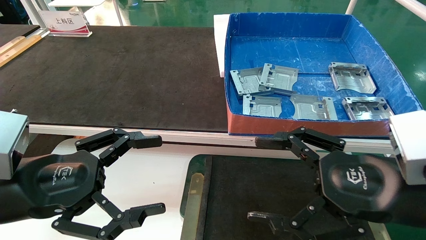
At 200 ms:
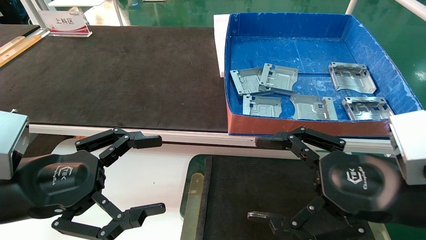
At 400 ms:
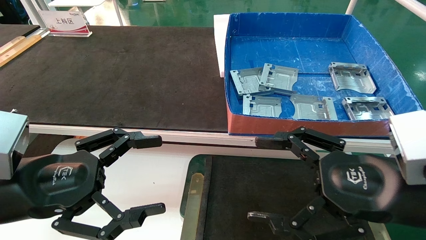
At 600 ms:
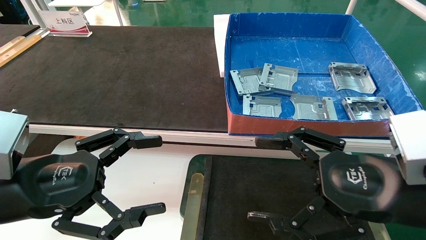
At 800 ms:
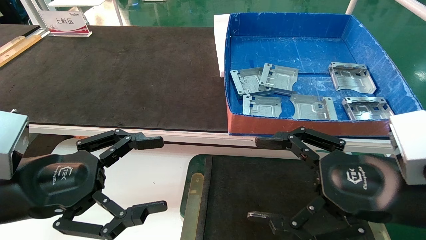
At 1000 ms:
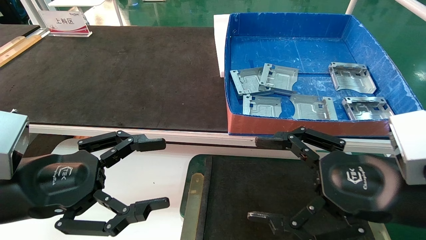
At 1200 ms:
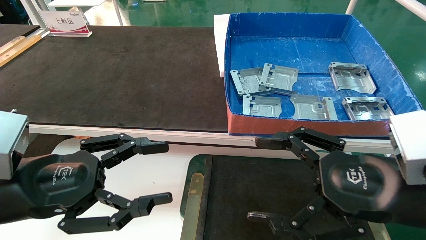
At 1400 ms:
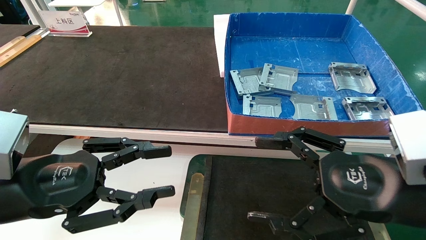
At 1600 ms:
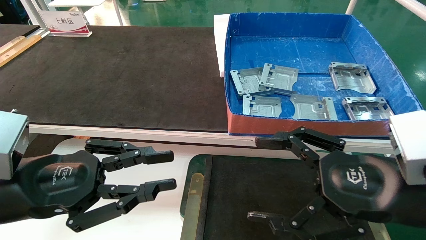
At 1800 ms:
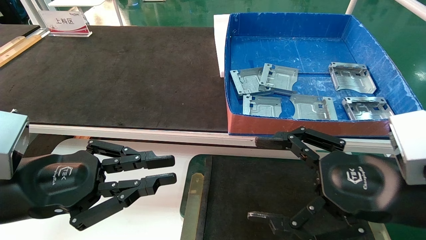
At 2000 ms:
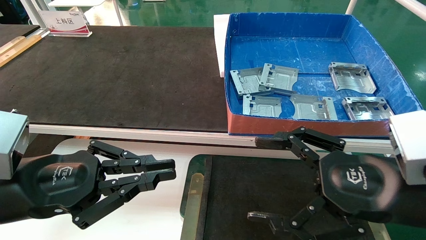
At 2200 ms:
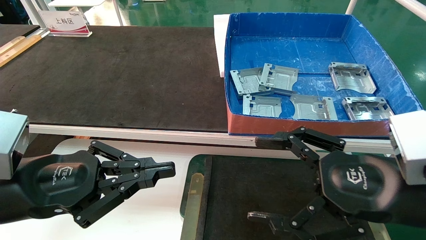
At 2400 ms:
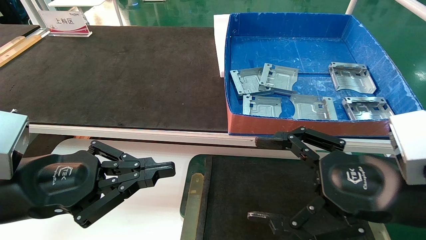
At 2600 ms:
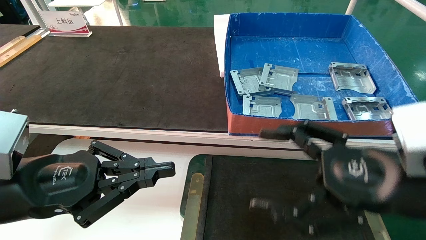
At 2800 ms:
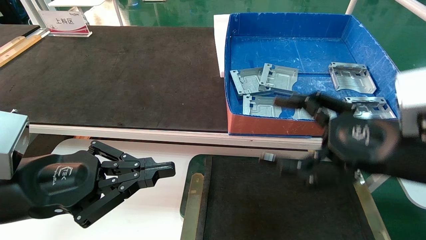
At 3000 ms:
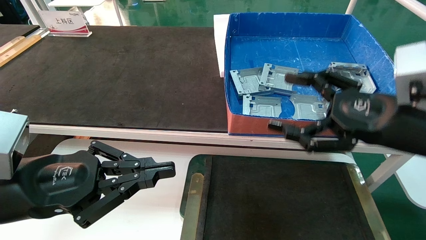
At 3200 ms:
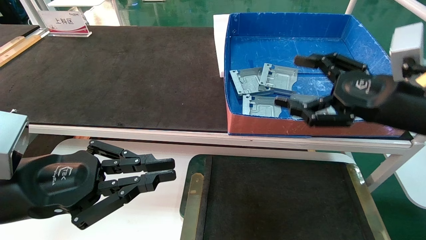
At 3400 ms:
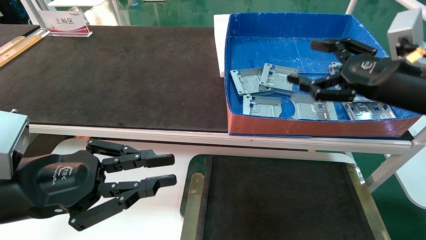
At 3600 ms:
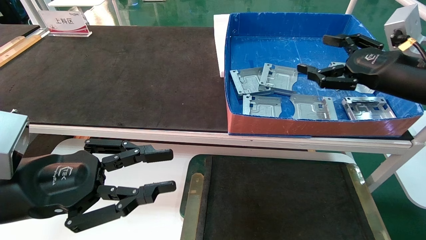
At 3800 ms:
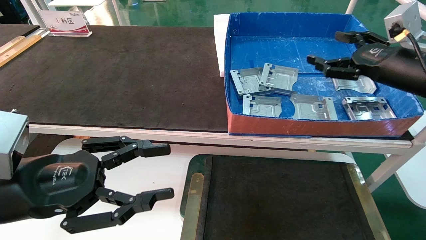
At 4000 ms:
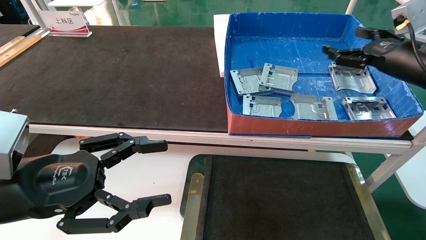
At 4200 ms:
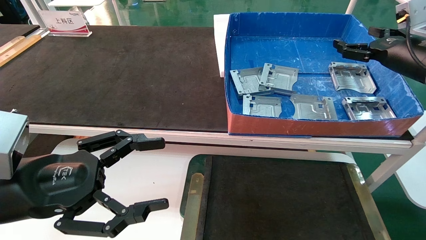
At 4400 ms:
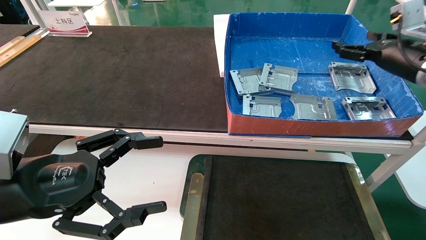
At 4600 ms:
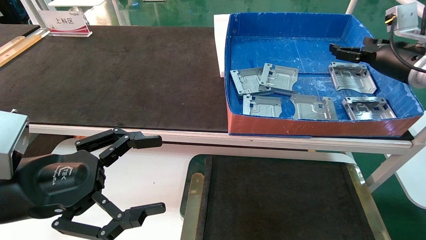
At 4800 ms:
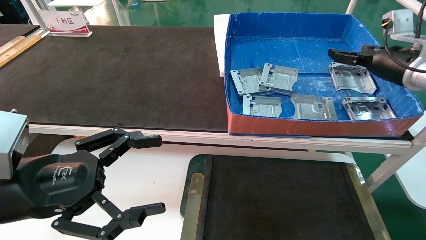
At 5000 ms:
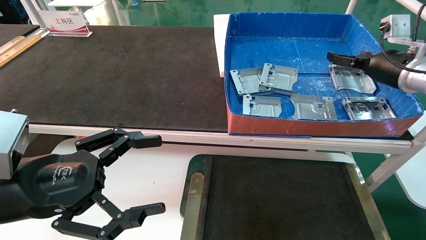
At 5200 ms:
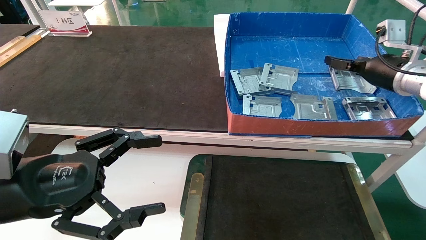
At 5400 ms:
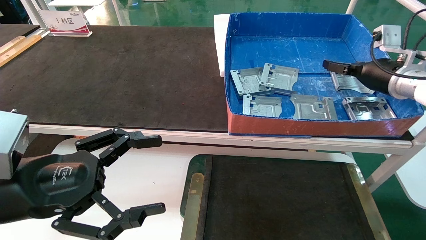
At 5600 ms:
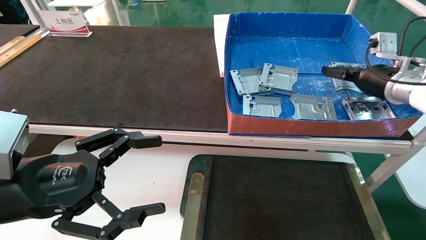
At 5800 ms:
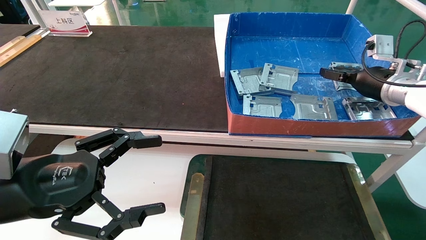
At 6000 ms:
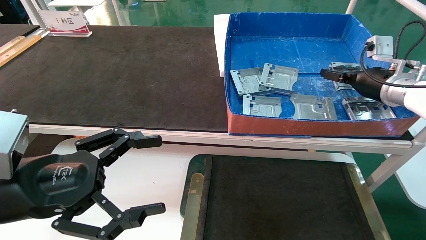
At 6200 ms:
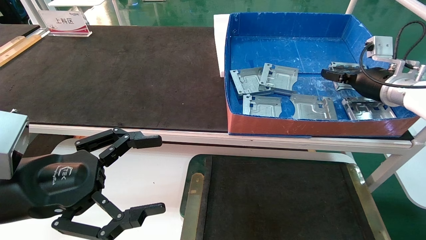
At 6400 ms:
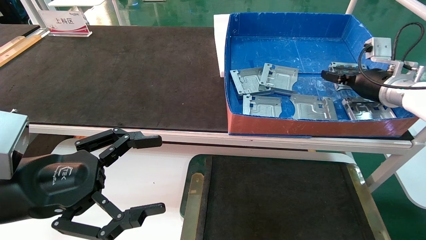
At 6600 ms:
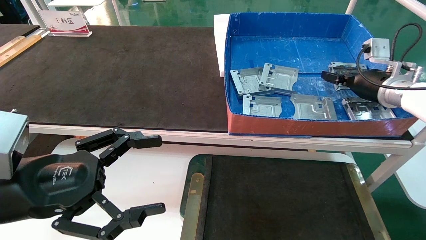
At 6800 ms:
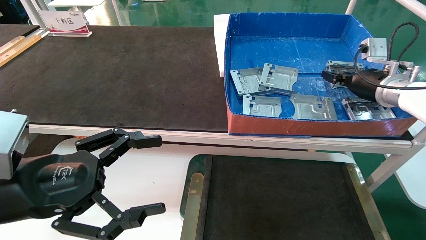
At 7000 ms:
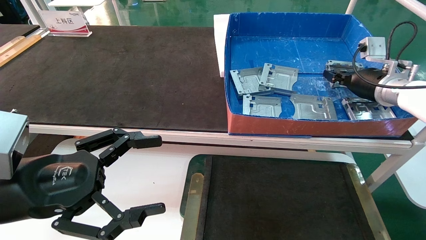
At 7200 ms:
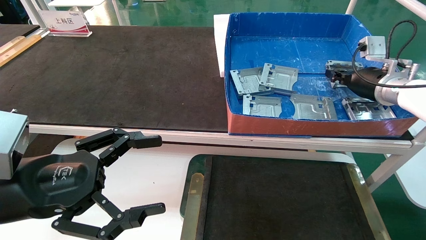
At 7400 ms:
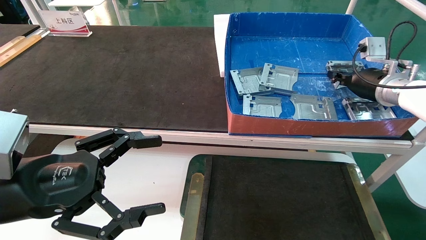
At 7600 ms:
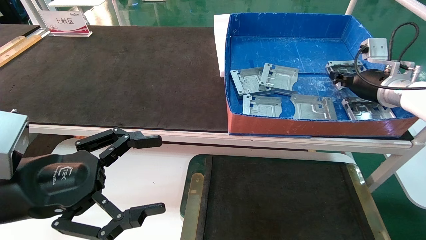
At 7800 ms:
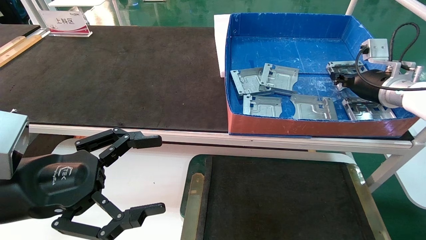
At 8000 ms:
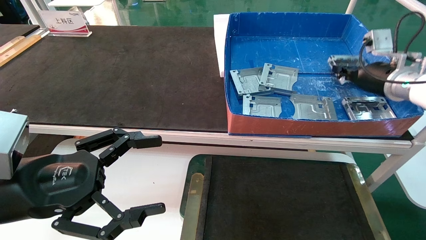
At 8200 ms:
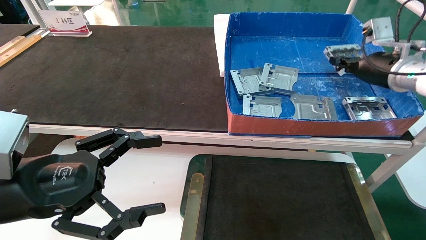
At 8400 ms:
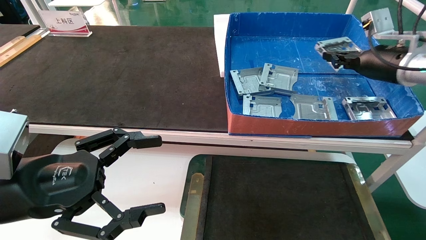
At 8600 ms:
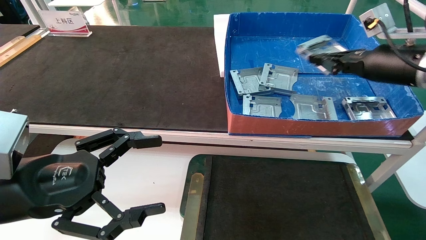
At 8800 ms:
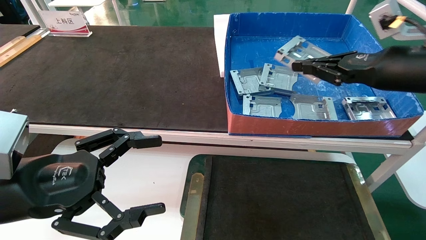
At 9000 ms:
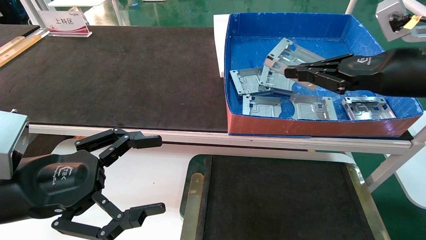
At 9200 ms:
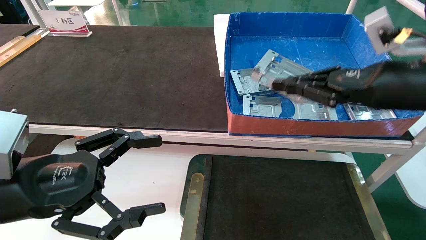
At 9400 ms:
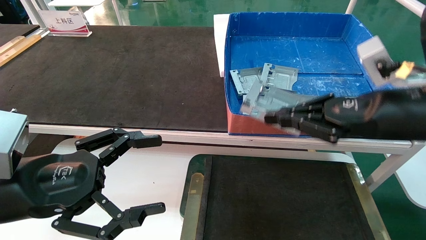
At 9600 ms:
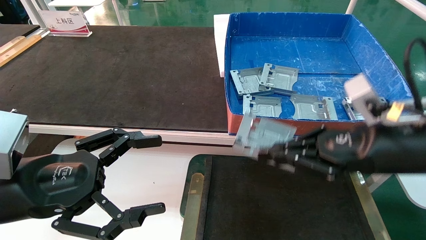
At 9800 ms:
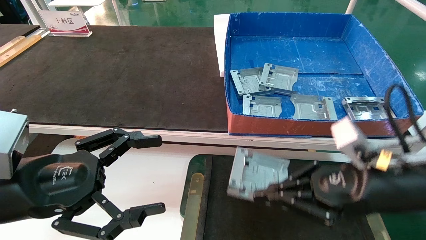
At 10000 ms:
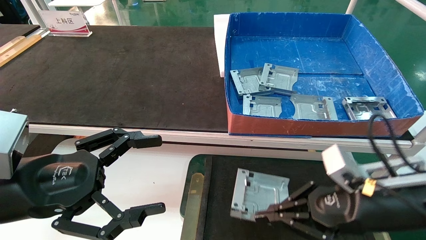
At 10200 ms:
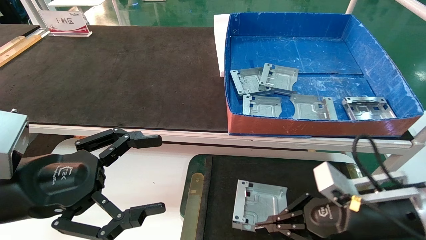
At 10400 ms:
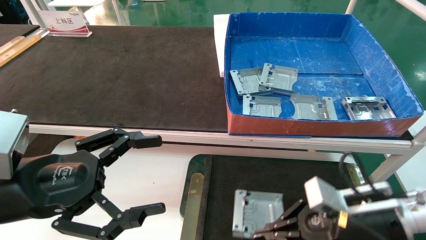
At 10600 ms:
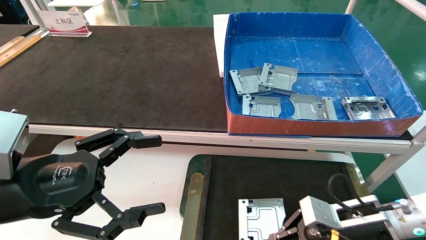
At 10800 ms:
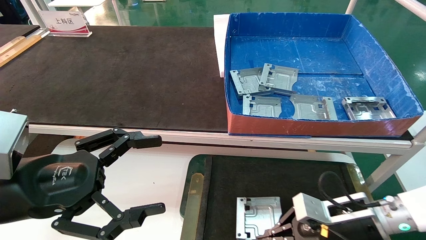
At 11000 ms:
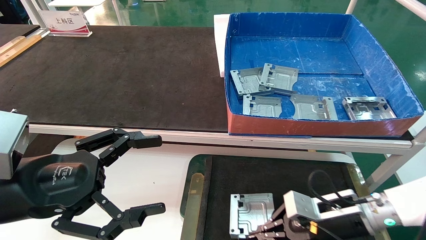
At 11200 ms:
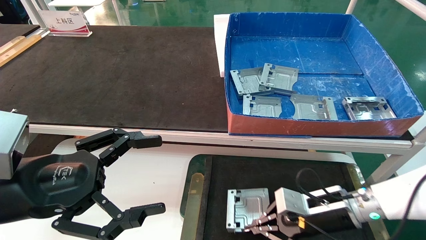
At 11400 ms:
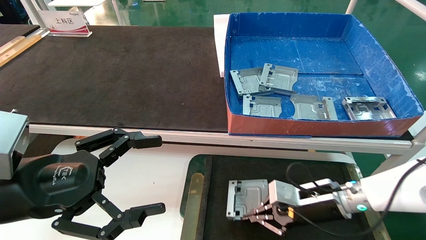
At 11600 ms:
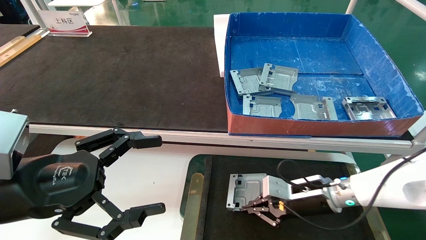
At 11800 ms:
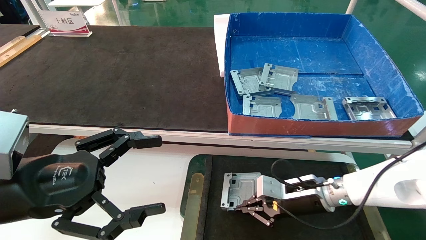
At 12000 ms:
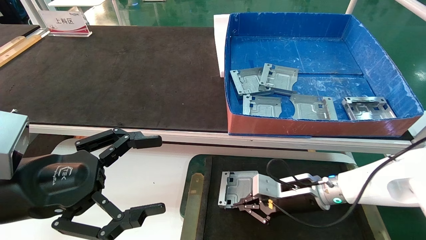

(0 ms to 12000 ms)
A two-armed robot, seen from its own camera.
Task of the whole recording: pick up parts and place them into a black container.
Step, 3000 ms - 7400 ms: Pick up the hard drive bracket from the feeding area.
0 ms - 1600 ms: The left gripper closes up.
1600 ms - 3000 ms: The left gripper closes. Meanwhile the right gripper is displaced forward by approximately 5 cm.
3000 ms - 4400 ms: The left gripper opens, while the right gripper is displaced forward and to the right by approximately 20 cm.
4400 ms - 6000 ms: The right gripper changes place by approximately 5 cm.
6000 ms - 7600 ms: The right gripper closes its fingers.
7600 ms - 9000 ms: The right gripper moves backward, some 15 cm.
9000 ms - 10400 ms: The right gripper is displaced downward by some 20 cm.
10400 ms - 12000 ms: The right gripper goes about 15 cm forward and to the left.

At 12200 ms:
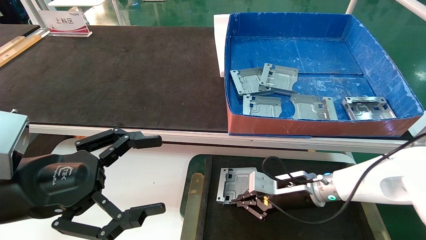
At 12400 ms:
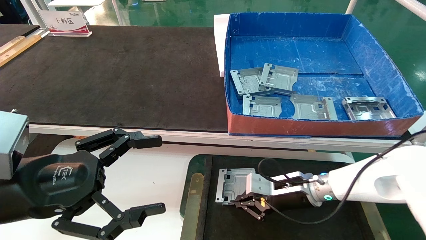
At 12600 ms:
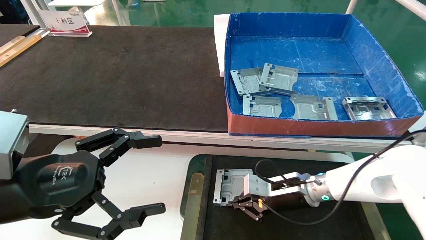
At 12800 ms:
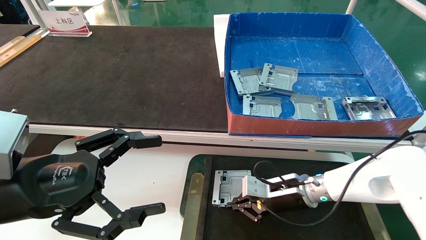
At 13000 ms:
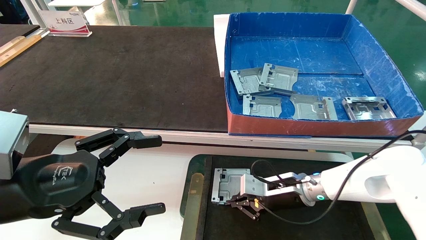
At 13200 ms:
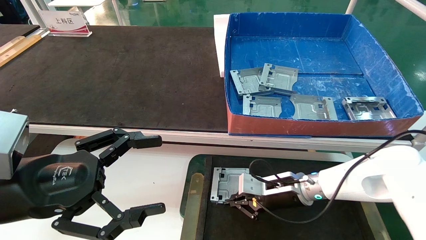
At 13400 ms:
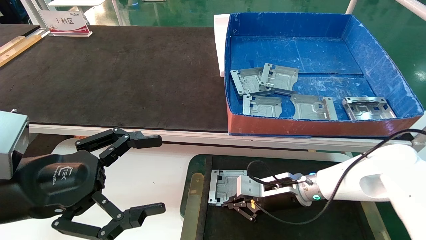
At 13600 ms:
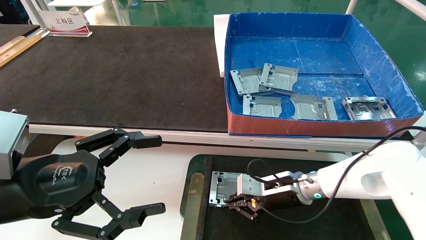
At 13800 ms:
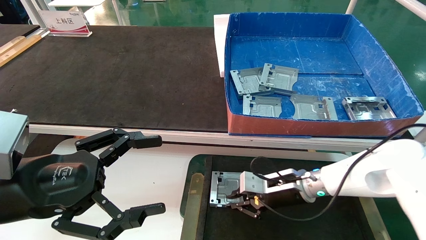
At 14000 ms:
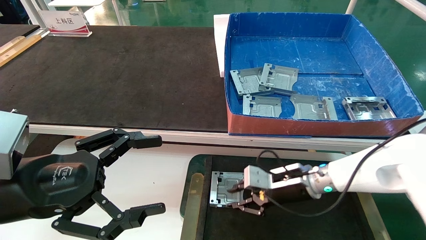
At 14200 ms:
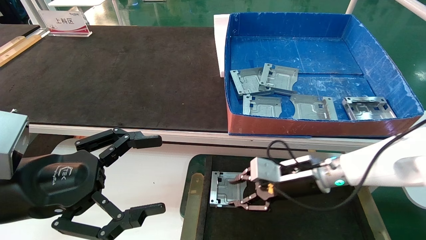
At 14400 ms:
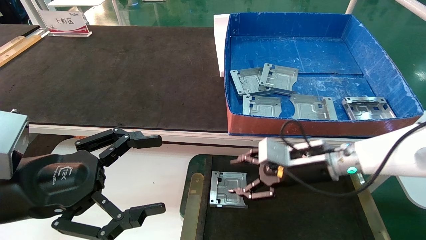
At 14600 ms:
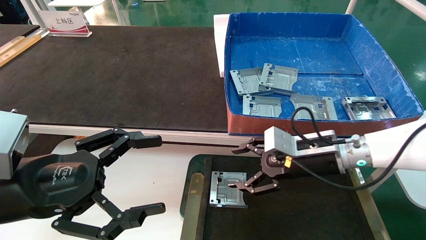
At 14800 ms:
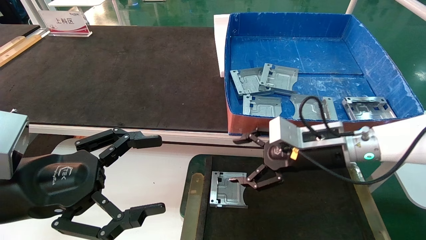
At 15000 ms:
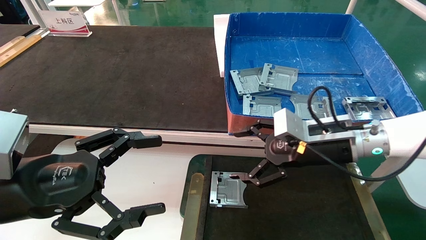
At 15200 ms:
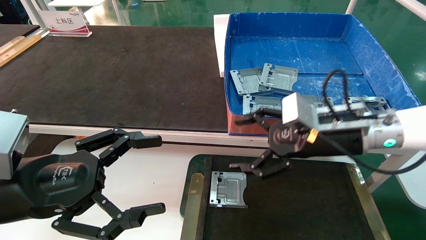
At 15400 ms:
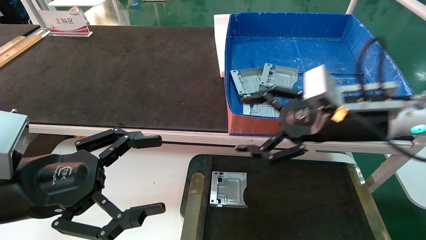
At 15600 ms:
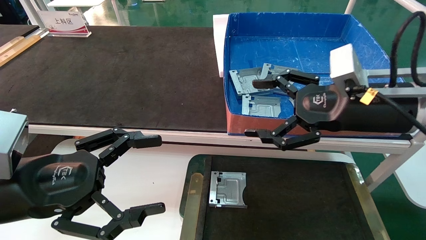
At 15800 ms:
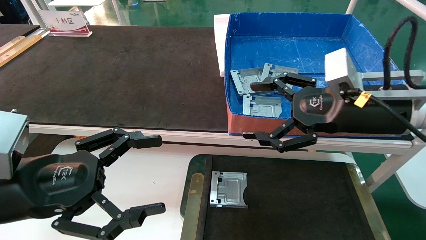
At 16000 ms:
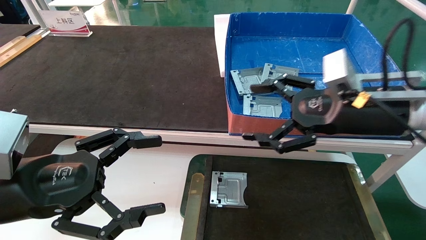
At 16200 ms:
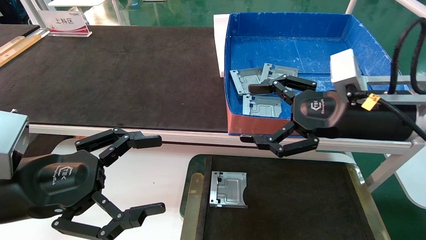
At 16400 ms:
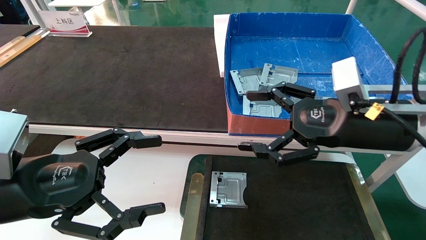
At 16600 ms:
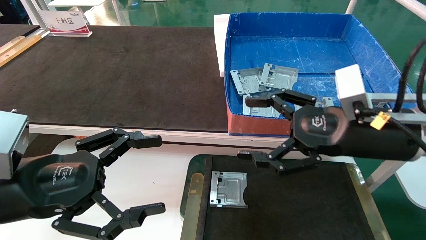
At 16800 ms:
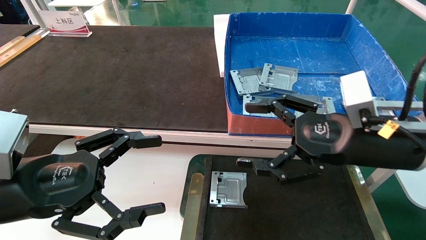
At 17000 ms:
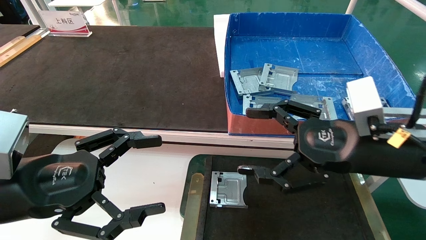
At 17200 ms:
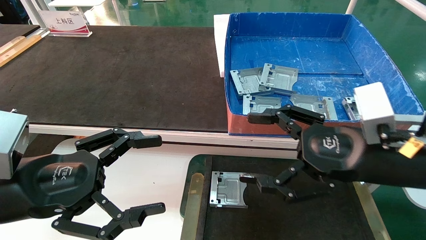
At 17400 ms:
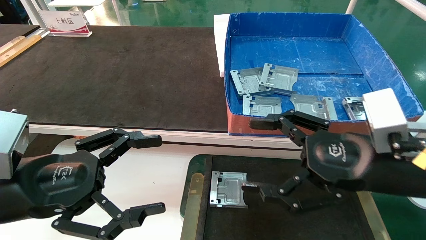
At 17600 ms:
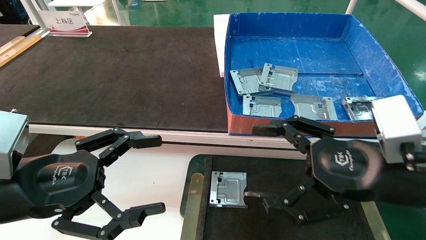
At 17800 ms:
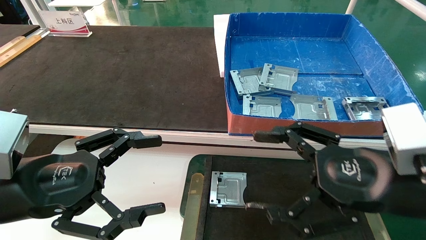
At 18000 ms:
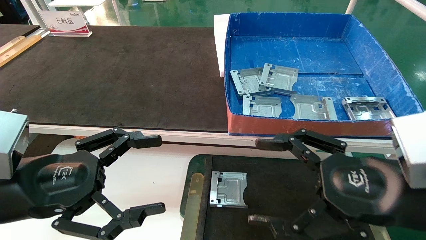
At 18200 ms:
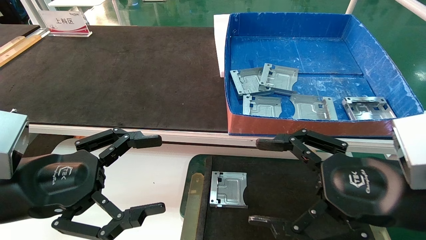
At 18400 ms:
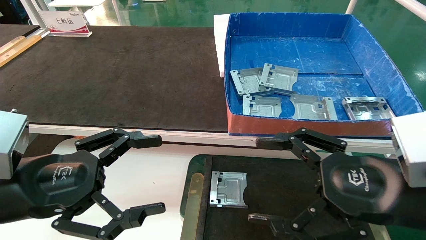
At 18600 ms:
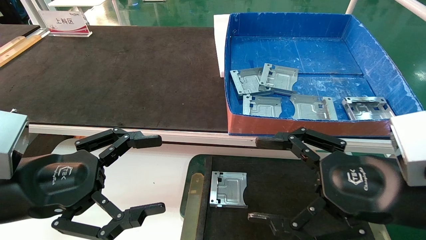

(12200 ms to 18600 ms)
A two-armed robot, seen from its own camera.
Task of the whole recording: pick up parts and place them into a black container.
12200 ms - 13800 ms: The grippers move only a little.
13800 ms - 15400 ms: The right gripper heads upward and backward, covering about 20 cm, and opens.
15400 ms - 17000 ms: The right gripper shifts some 5 cm backward.
17000 ms - 18600 ms: The right gripper is displaced backward by about 5 cm.
